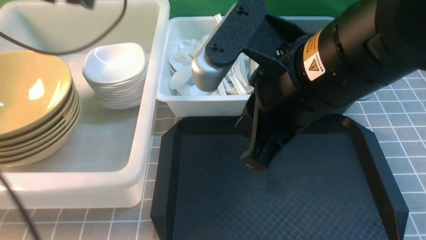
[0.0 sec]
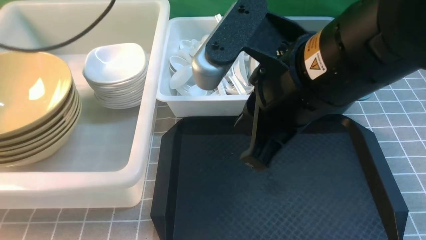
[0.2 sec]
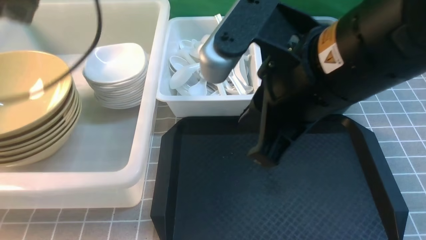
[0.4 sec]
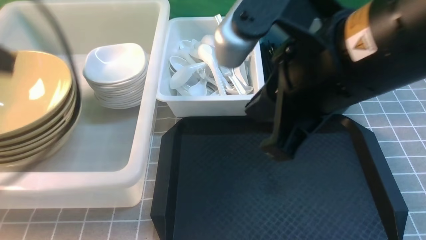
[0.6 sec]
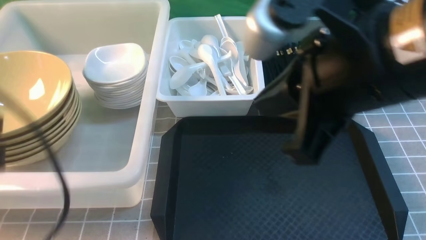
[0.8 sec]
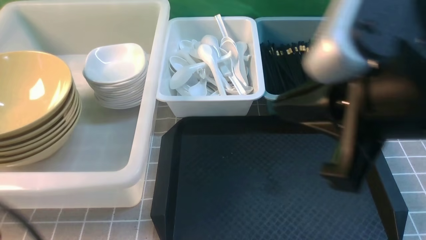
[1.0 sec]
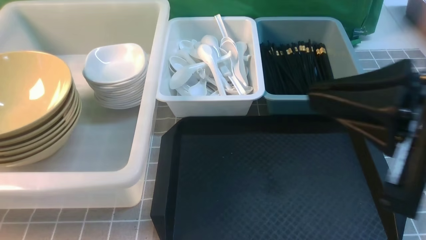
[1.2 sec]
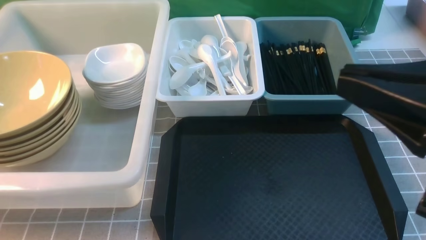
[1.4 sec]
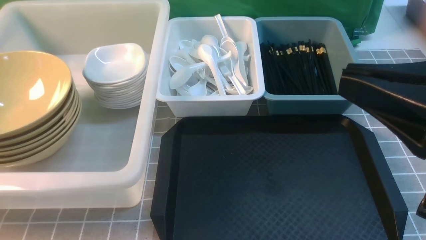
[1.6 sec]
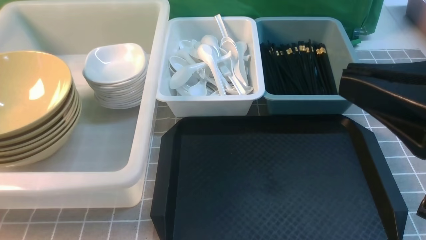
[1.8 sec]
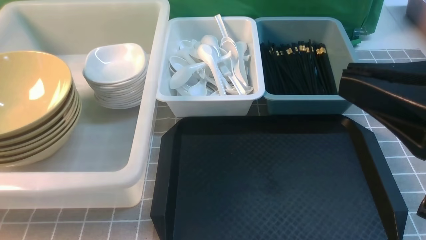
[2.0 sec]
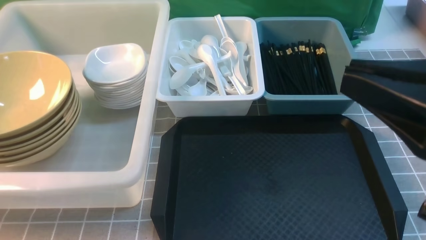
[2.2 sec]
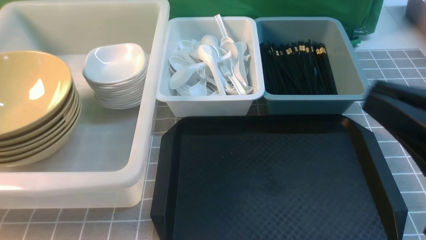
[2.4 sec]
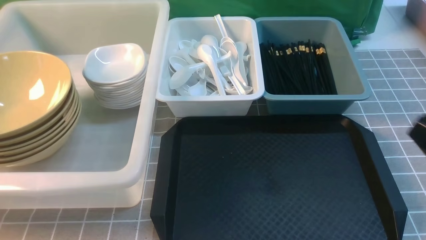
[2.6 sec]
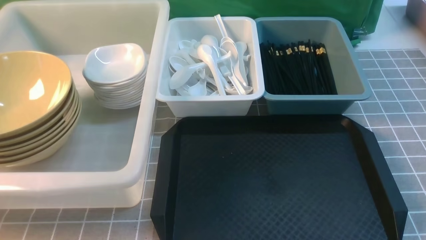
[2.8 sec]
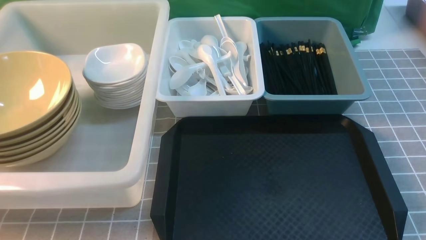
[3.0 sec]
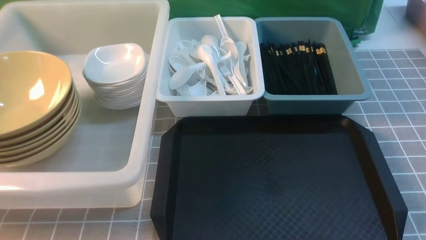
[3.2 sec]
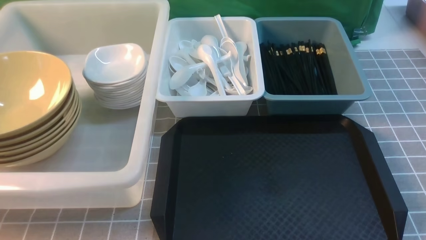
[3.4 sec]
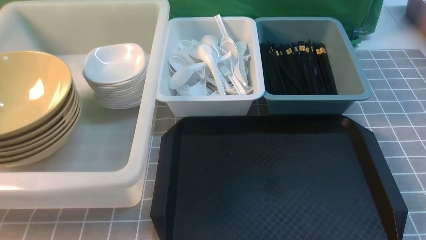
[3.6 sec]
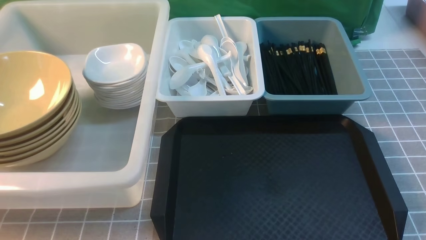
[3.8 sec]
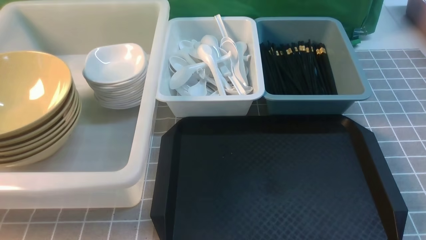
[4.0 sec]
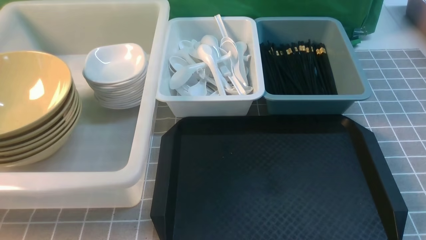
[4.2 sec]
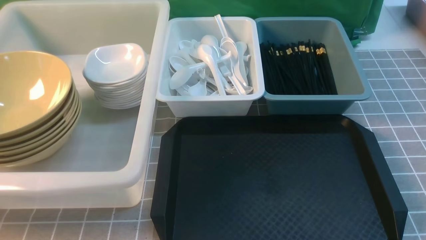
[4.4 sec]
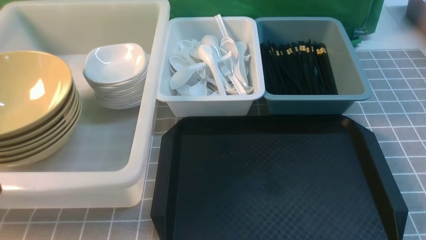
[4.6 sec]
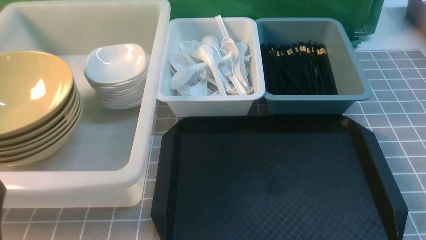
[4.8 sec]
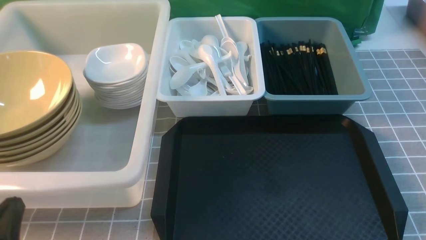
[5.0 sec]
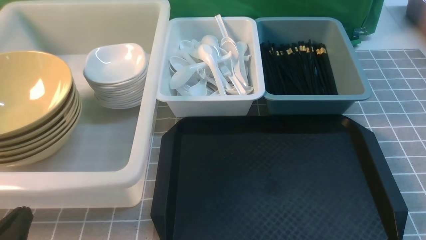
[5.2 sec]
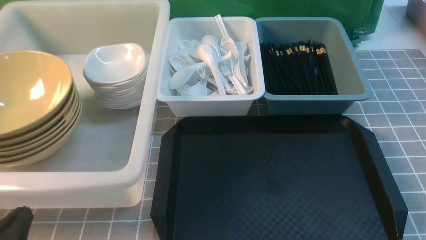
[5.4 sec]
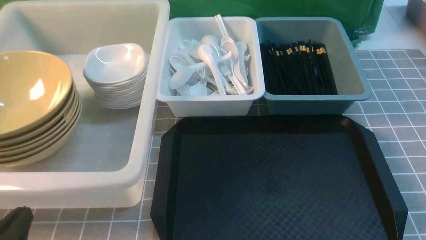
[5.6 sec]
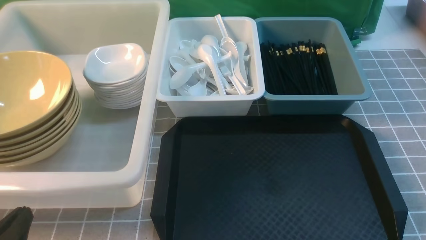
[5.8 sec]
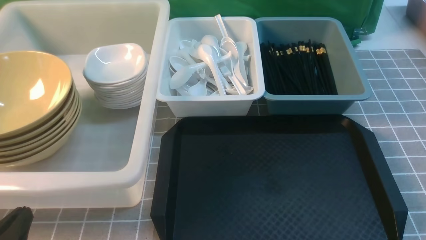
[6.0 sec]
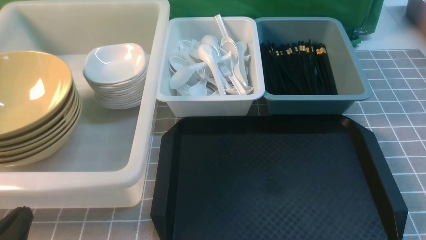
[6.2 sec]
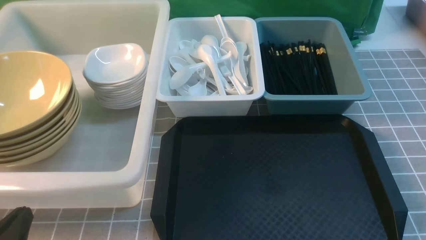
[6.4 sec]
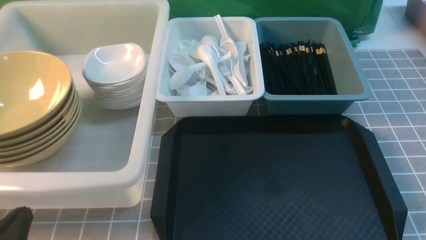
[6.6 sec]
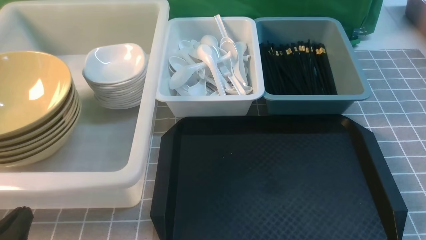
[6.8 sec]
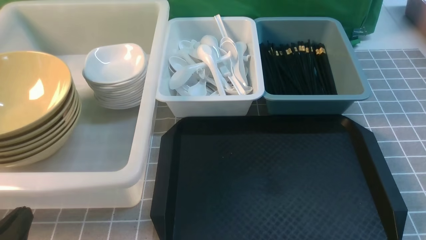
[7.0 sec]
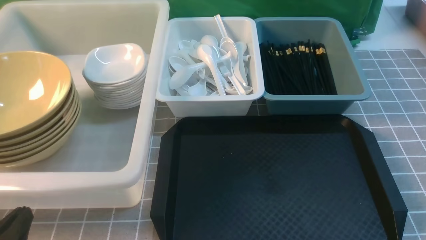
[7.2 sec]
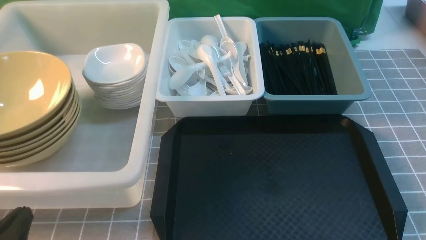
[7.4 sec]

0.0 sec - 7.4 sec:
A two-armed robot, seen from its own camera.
Task of the whole recording: on grey table put chopsticks spoon bowls plates into blue grey white boxes.
0.0 sec - 1.4 sec: The right gripper travels to the right and backward by about 15 cm; the left gripper is displaced backward by approximately 40 cm, and closes its fingers.
1.4 sec - 3.0 sec: The right gripper is displaced downward and to the right by roughly 20 cm.
4.4 sec - 6.0 sec: The left gripper heads downward, covering about 10 cm.
6.0 sec - 7.4 sec: Neither gripper changes place.

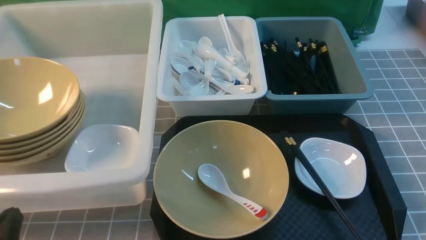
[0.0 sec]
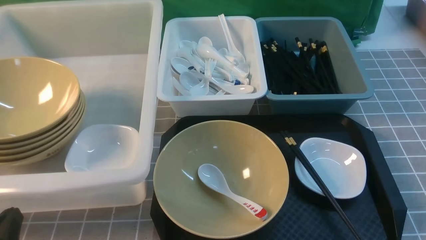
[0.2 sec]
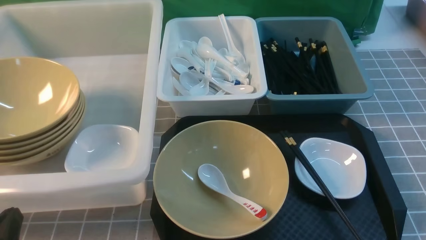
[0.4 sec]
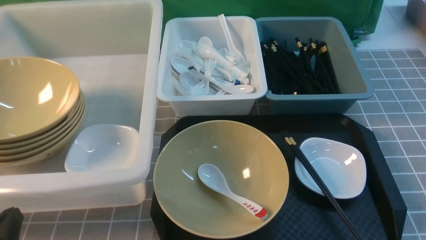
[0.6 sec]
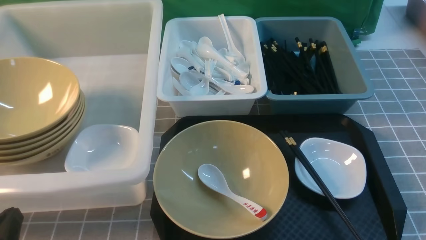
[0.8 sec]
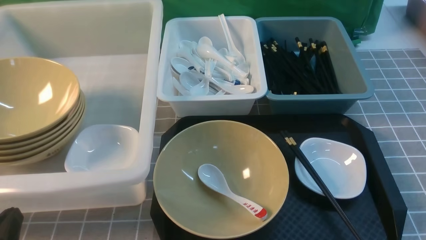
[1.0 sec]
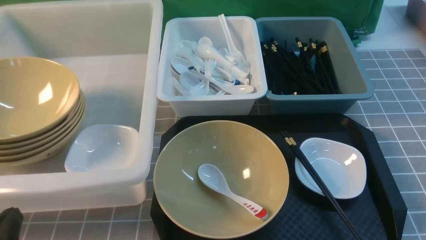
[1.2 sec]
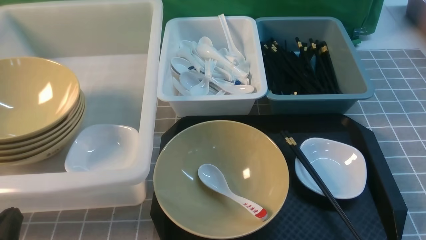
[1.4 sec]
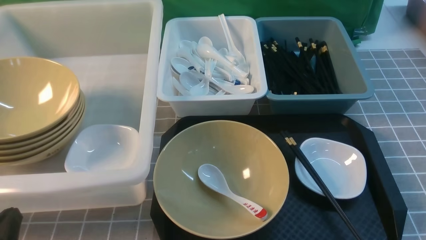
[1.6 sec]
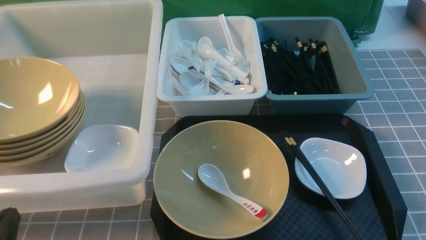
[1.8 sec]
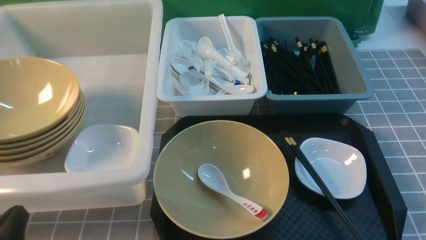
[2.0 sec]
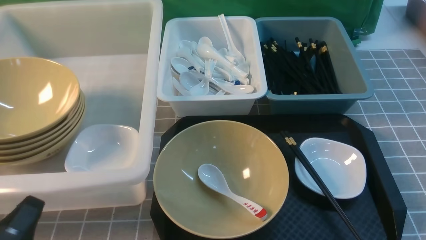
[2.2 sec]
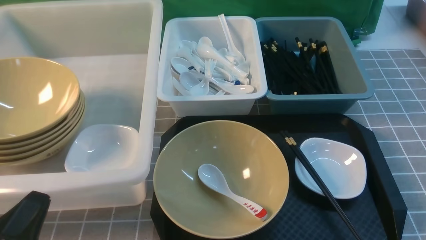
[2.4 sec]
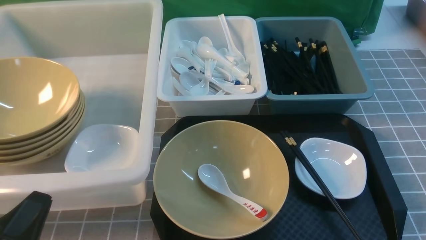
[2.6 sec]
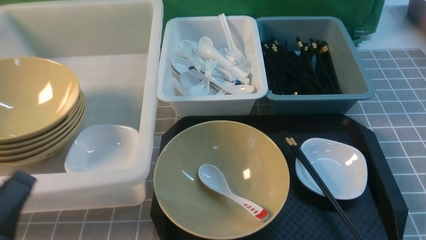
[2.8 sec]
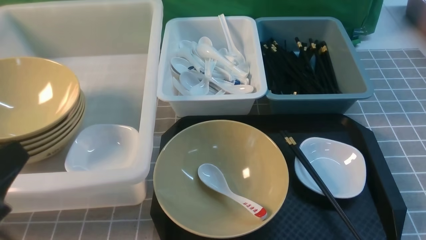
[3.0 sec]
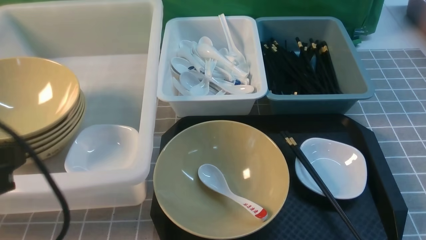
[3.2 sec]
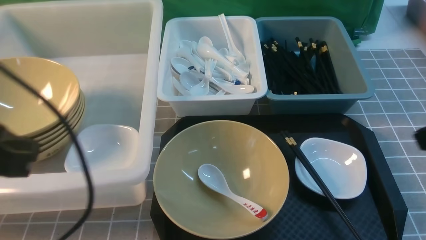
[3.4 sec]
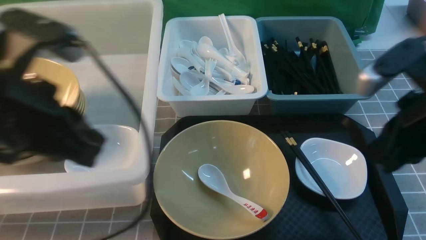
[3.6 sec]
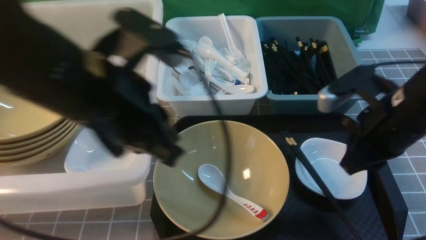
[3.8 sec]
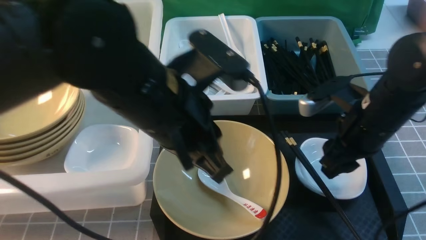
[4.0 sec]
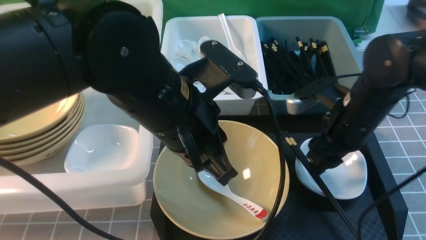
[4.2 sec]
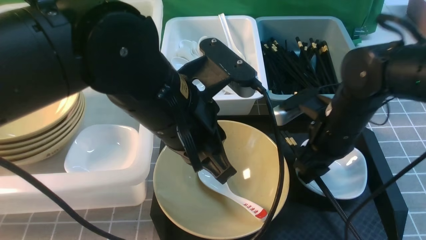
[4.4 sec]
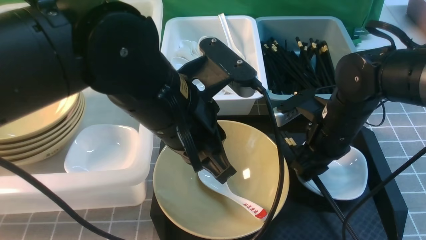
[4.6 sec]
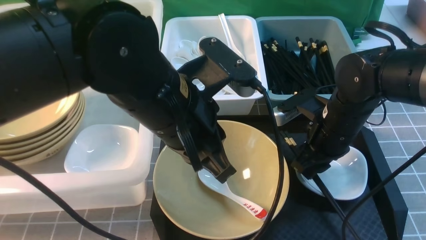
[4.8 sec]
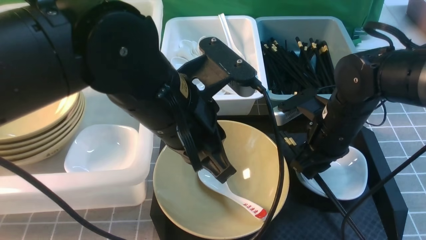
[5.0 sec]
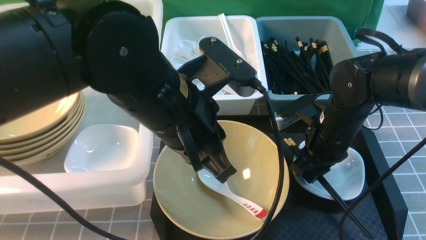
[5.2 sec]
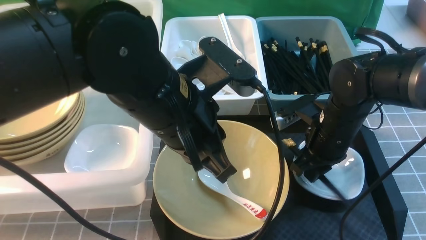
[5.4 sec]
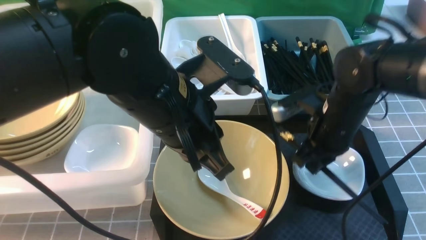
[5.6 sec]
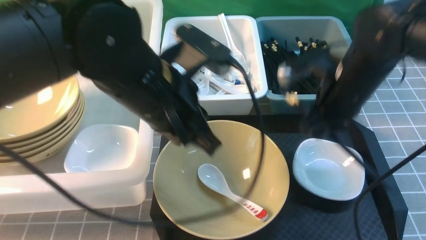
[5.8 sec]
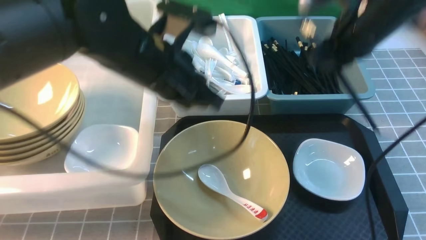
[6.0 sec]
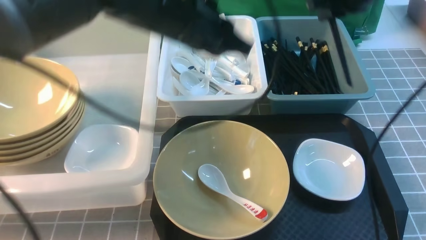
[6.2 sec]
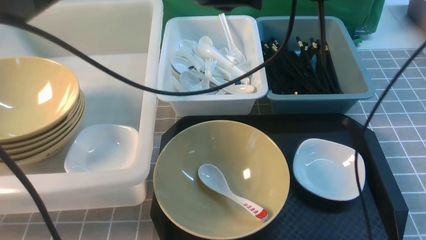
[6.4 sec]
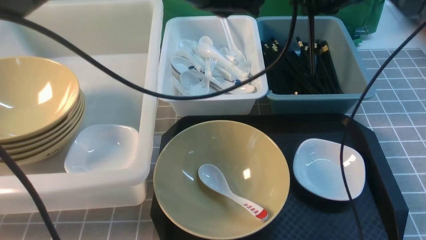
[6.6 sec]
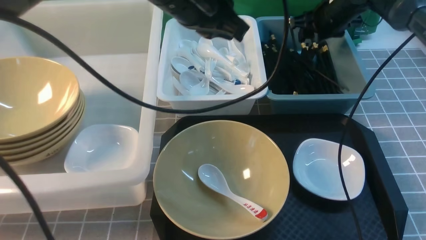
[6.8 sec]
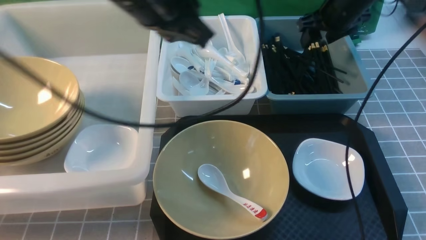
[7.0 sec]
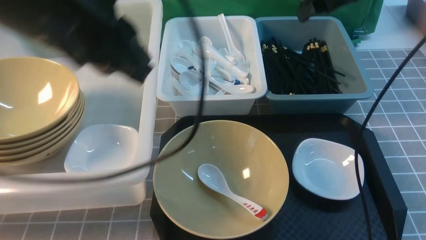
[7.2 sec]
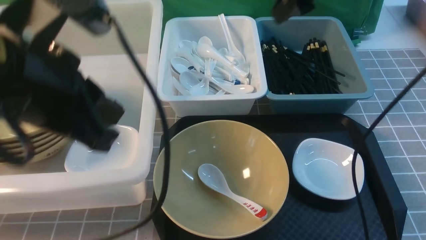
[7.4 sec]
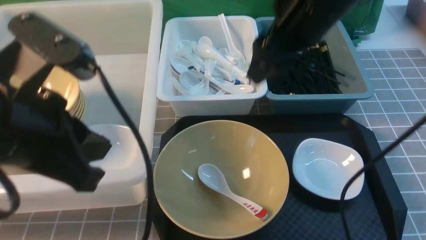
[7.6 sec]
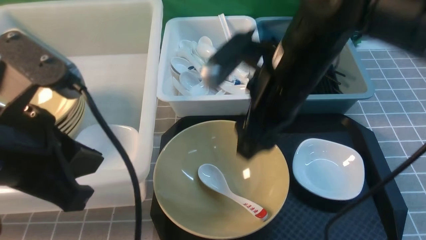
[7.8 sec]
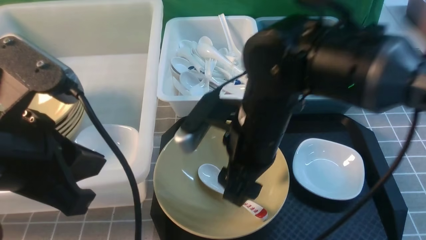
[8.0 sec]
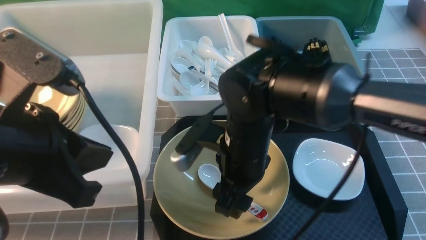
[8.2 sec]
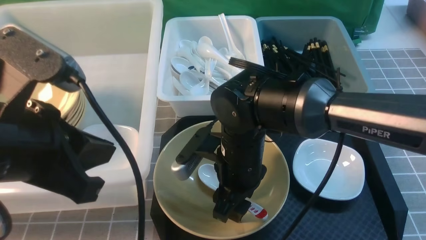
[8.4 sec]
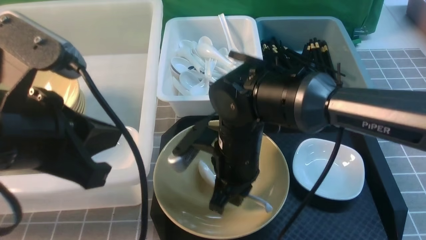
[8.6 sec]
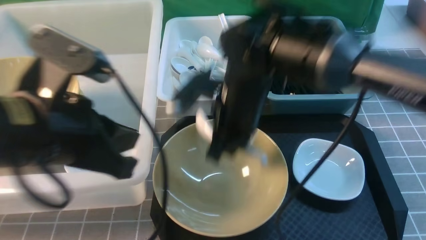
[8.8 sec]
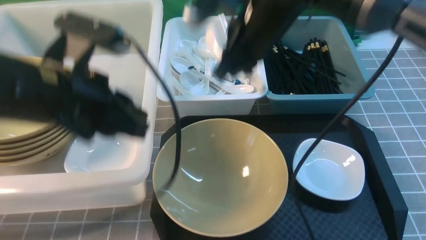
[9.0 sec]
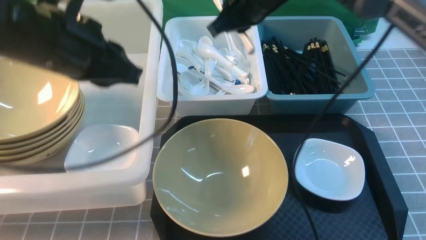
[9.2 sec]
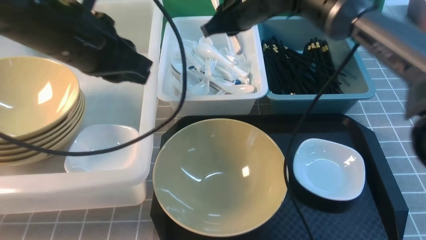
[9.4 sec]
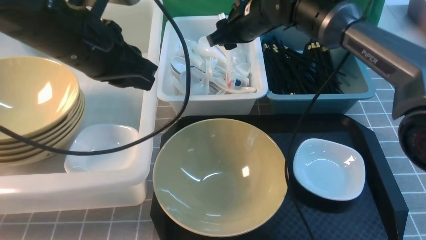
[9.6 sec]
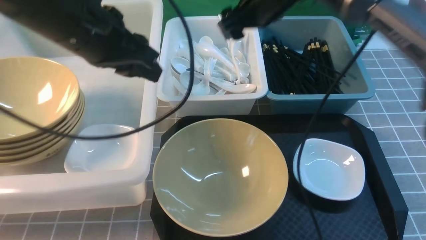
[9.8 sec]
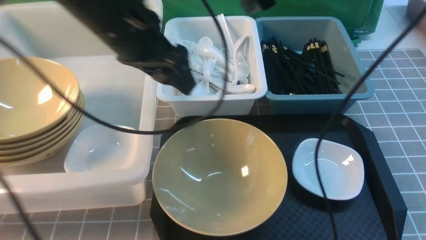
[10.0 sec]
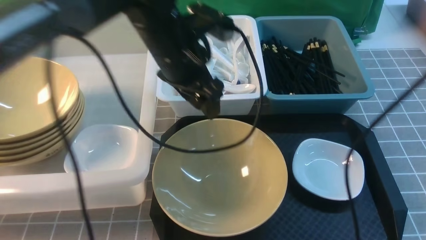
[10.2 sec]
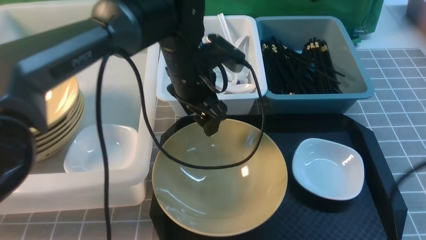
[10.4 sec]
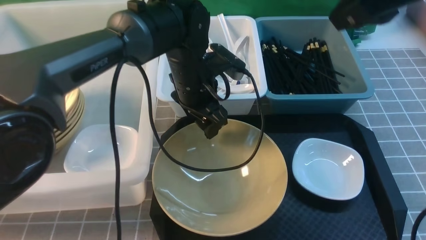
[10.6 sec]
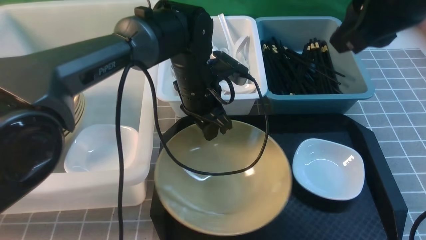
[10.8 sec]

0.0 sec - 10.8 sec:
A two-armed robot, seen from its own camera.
Task of the whole recording: on grey table put chopsticks spoon bowls plates into blue grey white boxes.
Step, 0.0 sec - 5.6 sec: use the right arm to grab the chopsticks.
Step, 5.8 sec - 7.0 sec: use the right arm to put the chopsticks into the small storage box on the right.
Step, 7.2 sec - 8.6 sec: use the right arm to grab the soup spoon in the middle.
Step, 9.0 sec - 9.8 sec: use the right arm to put the soup spoon into the small storage box in the middle.
0.0 sec - 1.6 sec: The two grippers keep their place.
1.6 sec - 3.0 sec: The left gripper goes approximately 15 cm upward.
3.0 sec - 4.6 sec: The left gripper shifts some 25 cm to the right and forward, while the right gripper heads forward, downward and to the left, covering some 30 cm, and opens.
4.6 sec - 6.2 sec: The right gripper travels upward and forward by about 20 cm, and closes, while the left gripper goes some 10 cm forward.
6.2 sec - 7.8 sec: Both grippers move backward and to the left, about 20 cm. The right gripper opens its fingers.
7.8 sec - 9.2 sec: The two grippers go approximately 15 cm forward. The right gripper closes.
9.2 sec - 10.8 sec: The left gripper shifts about 20 cm downward, to the right and forward, and opens. Meanwhile the right gripper heads backward, to the right and upward, covering approximately 25 cm, and opens, then closes again.
